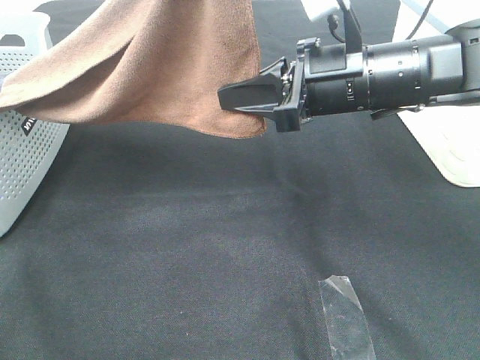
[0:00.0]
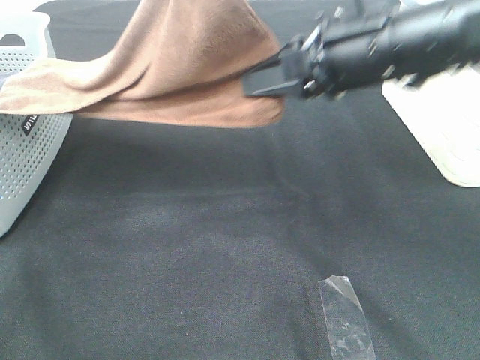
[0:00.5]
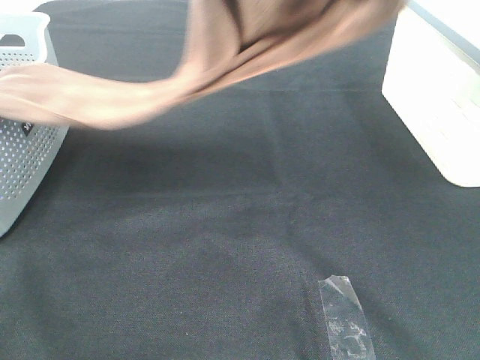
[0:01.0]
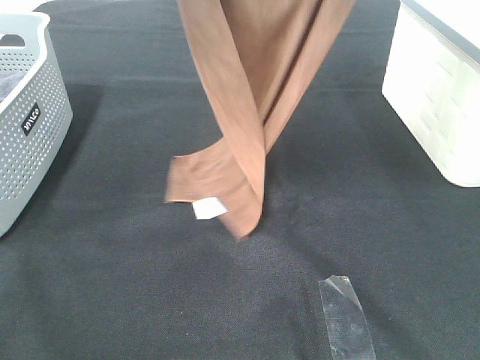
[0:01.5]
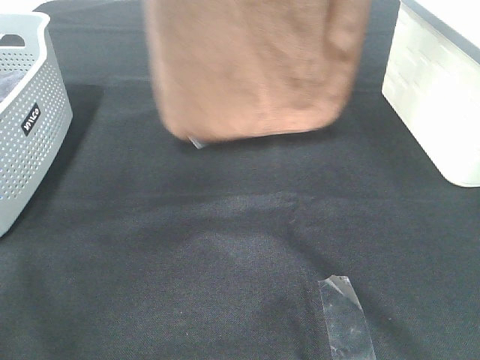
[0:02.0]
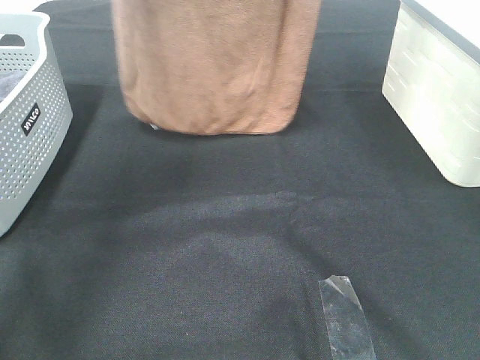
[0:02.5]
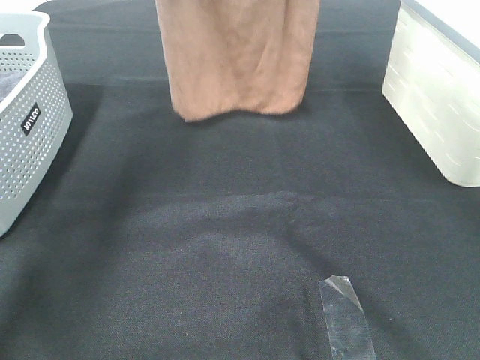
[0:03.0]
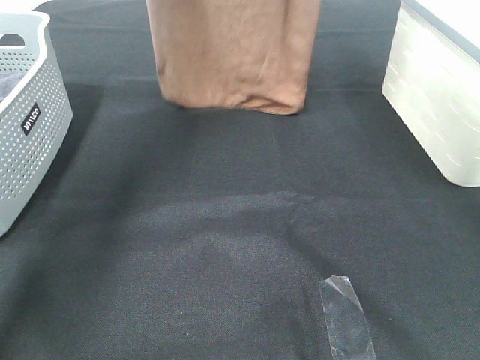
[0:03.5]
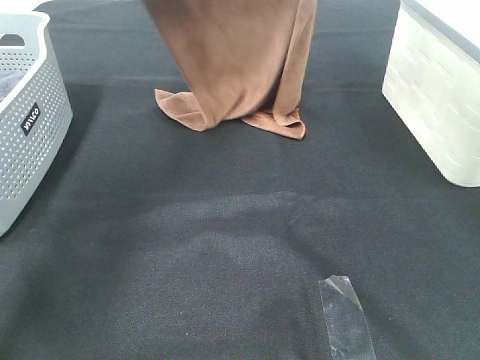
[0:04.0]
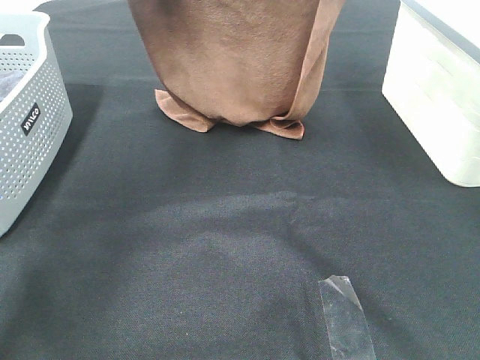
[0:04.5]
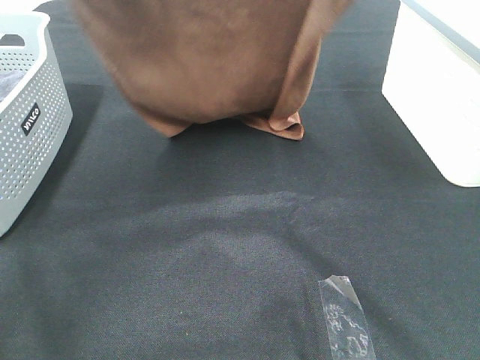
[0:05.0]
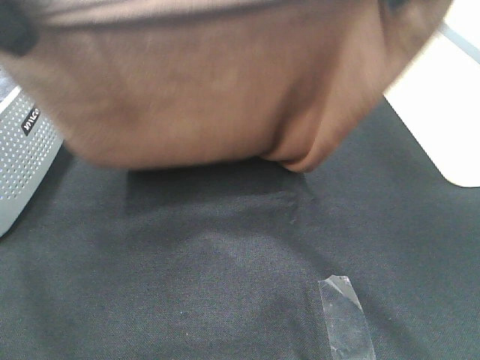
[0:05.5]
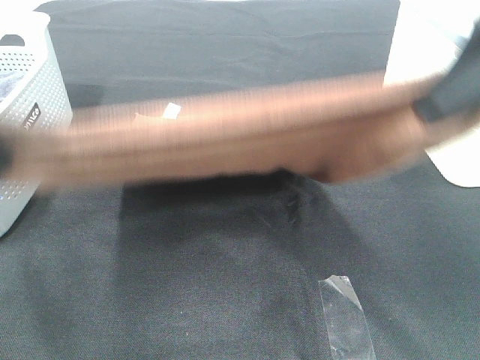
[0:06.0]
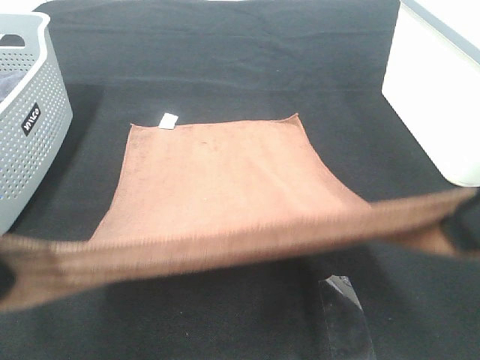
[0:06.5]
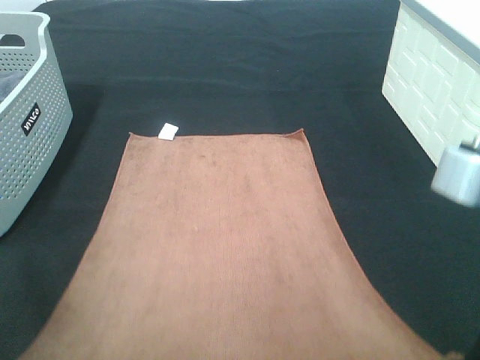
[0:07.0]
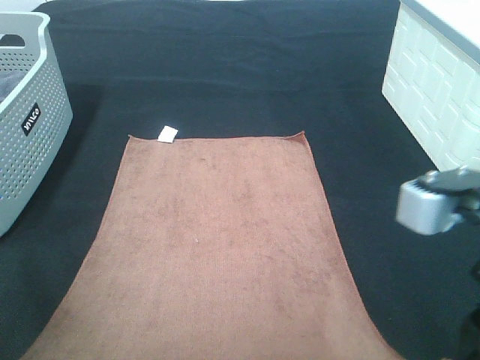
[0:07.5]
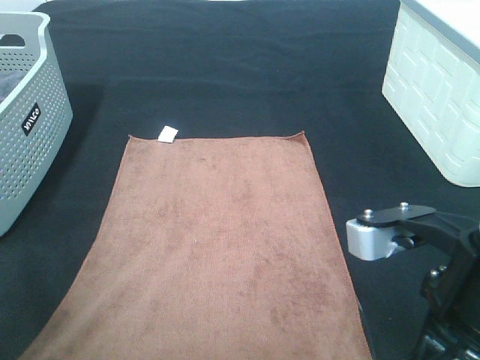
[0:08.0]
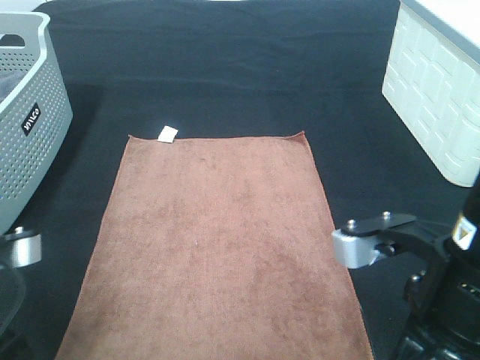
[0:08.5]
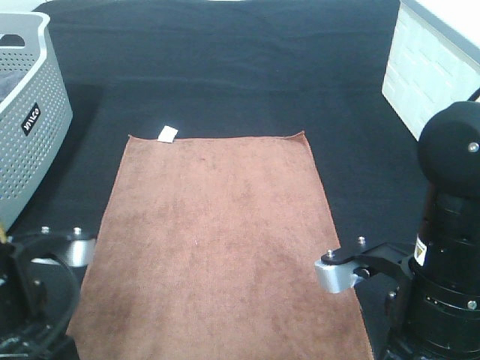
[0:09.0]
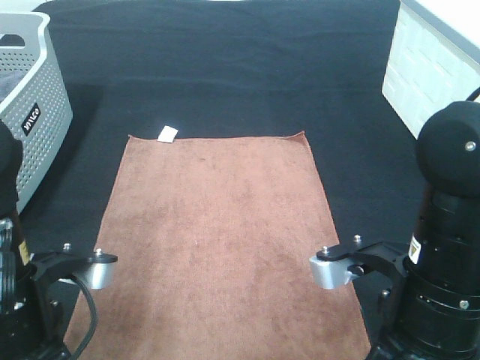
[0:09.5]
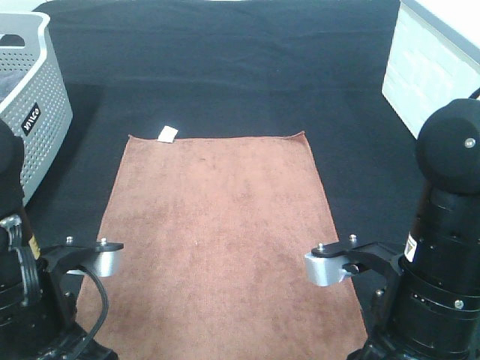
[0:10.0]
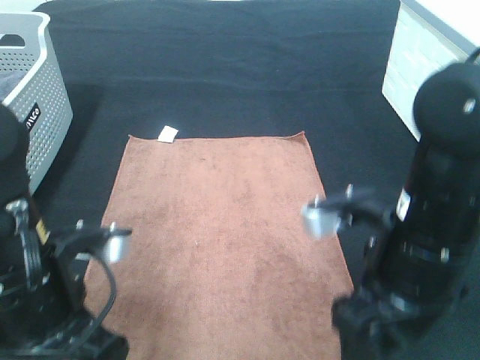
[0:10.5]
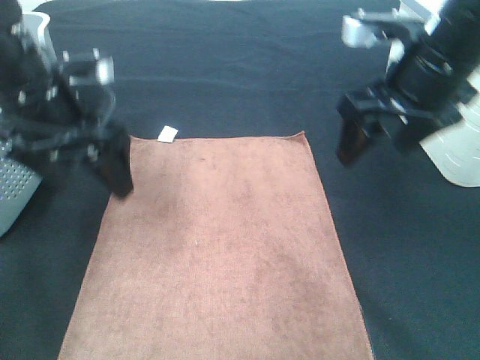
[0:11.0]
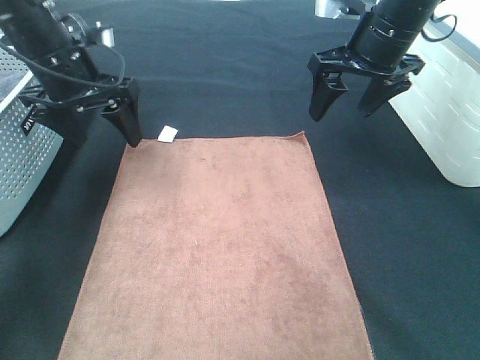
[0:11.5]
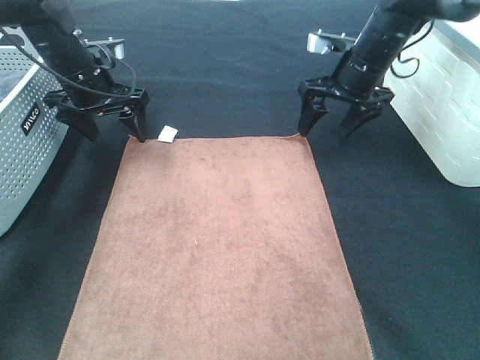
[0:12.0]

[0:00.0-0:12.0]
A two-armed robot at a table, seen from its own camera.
Task of the whole recording: Remove the towel and place it.
Step, 0:00.0 to 0:05.5: Left hand: spread the brown towel flat on the table.
Step, 0:00.0 to 0:05.5: Right hand: spread the brown towel flat on the table.
0:00.0 to 0:02.0: The left gripper goes approximately 10 cm forward and to the left. The right gripper shifts approximately 30 cm upward.
0:02.0 to 0:04.0: The grippers both shift downward and forward by about 15 cm.
0:04.0 to 0:06.0: The two grippers go about 30 cm backward.
0:06.0 to 0:08.0: The right gripper shifts roughly 15 cm downward; the left gripper moves downward and backward, approximately 15 cm.
0:08.0 to 0:10.0: The left gripper travels to the right and downward by some 10 cm, and opens up. The right gripper moves downward, about 5 cm, and opens.
0:10.0 to 0:12.0: The grippers both shift forward by about 35 cm.

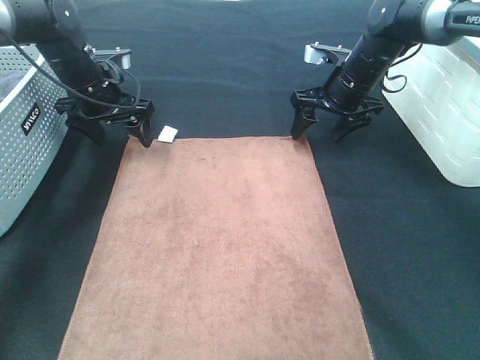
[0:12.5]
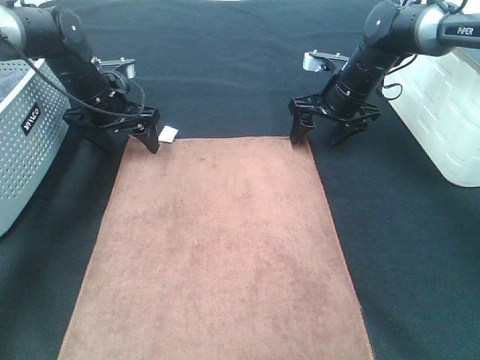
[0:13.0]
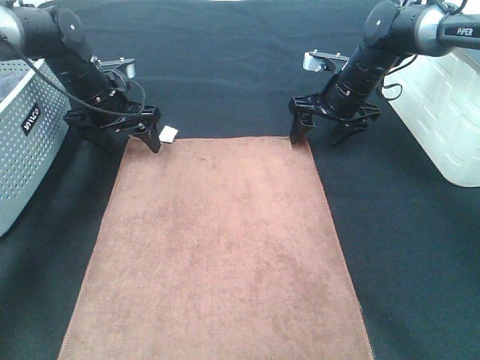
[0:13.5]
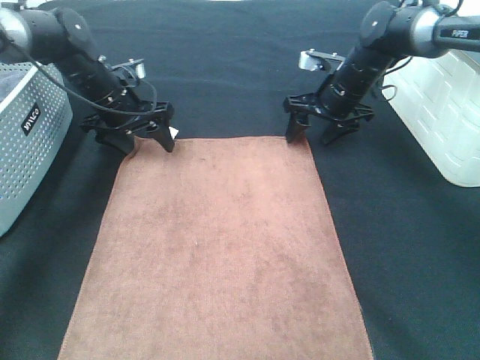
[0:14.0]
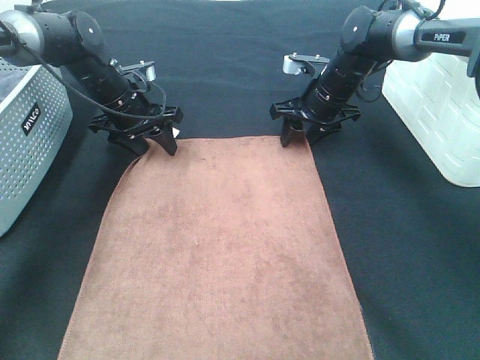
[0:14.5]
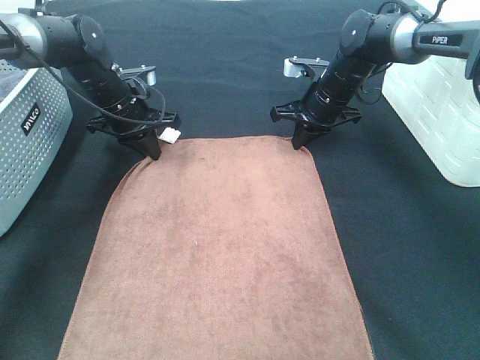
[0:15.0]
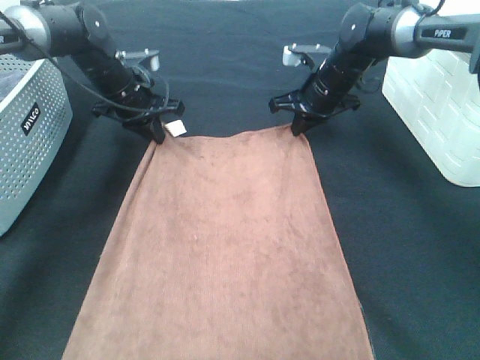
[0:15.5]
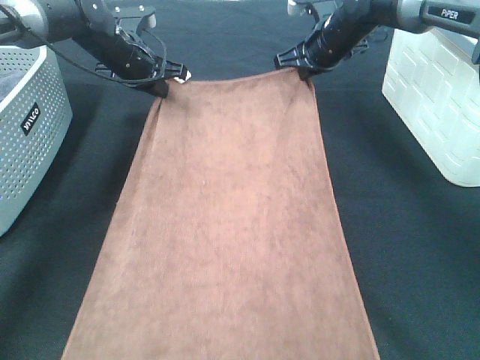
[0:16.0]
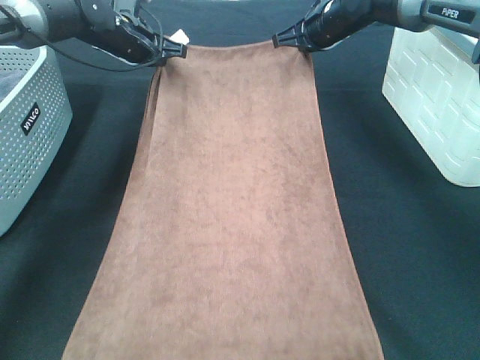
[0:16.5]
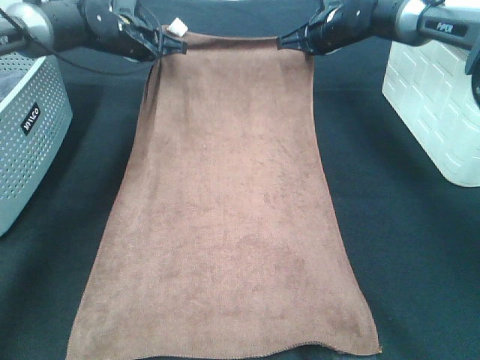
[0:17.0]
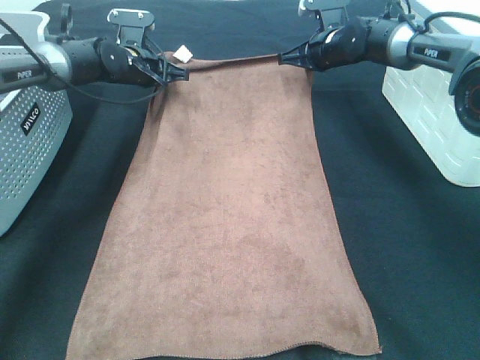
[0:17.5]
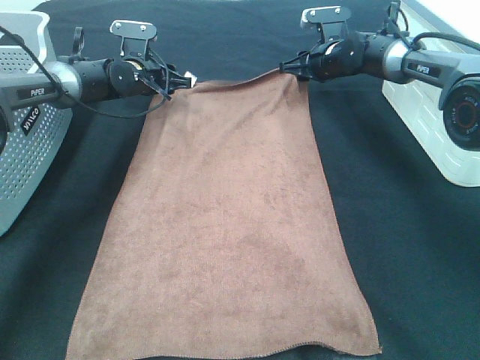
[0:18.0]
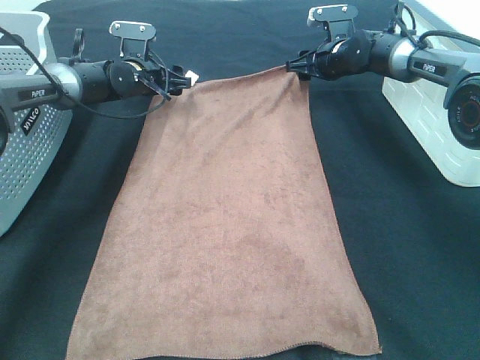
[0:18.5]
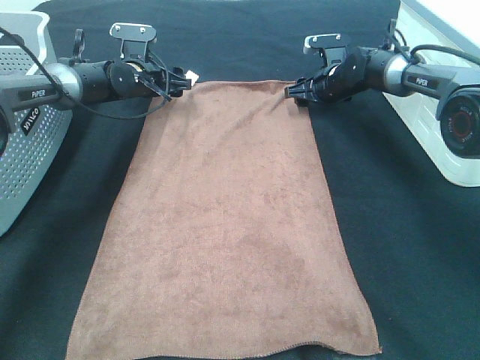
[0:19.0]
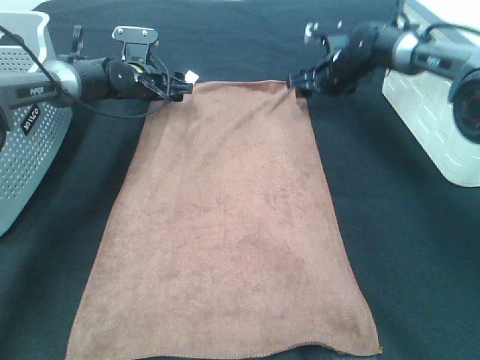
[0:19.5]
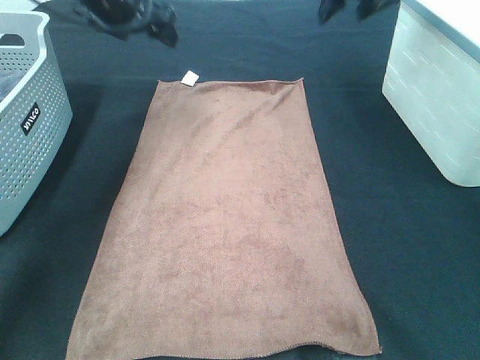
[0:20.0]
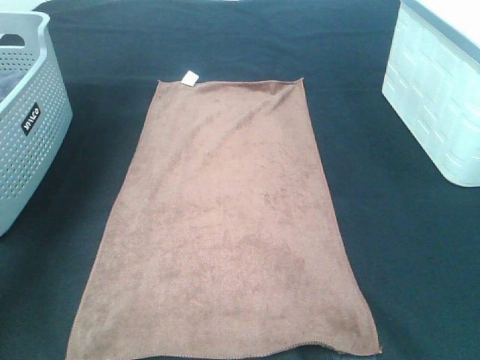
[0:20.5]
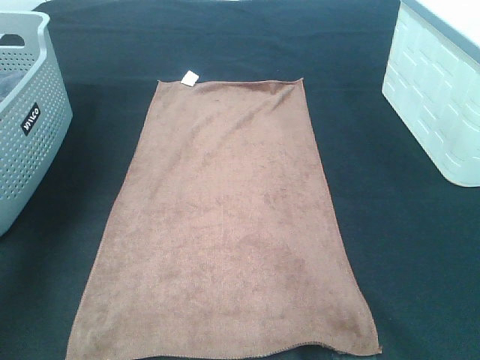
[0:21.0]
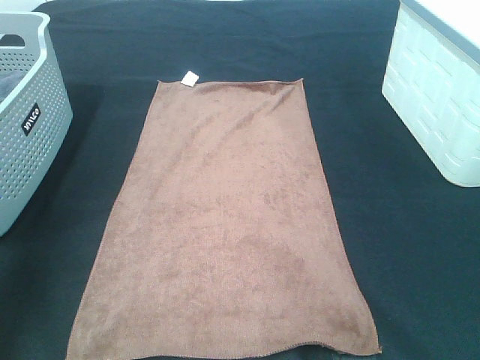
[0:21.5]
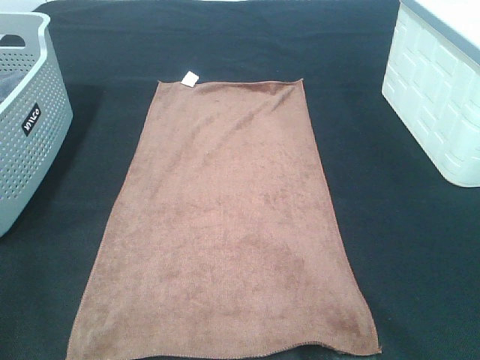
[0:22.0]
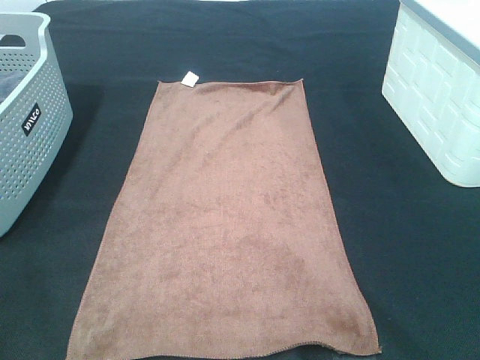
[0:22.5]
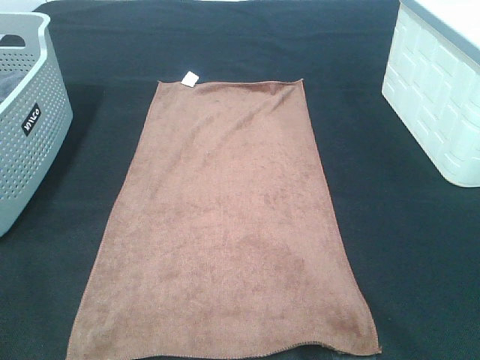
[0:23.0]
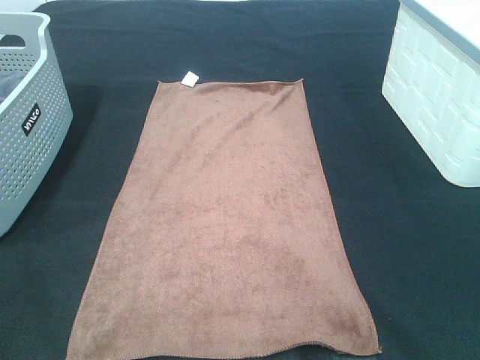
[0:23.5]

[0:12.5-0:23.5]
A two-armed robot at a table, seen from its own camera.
Task of the whole recording: Remove the towel and place it.
0:12.5 to 0:14.5: The right gripper closes up.
0:14.5 to 0:16.0: The left gripper moves approximately 5 cm, and closes. Meanwhile the right gripper heads upward, covering roughly 5 cm, and closes its fingers.
0:16.0 to 0:18.0: The grippers both shift downward by roughly 5 cm. The right gripper opens up, while the left gripper opens its fingers.
0:18.0 to 0:20.0: Both grippers travel together upward, roughly 20 cm.
0:20.0 to 0:21.5: The two grippers go roughly 35 cm backward.

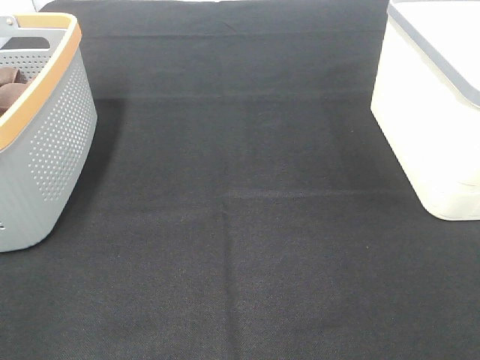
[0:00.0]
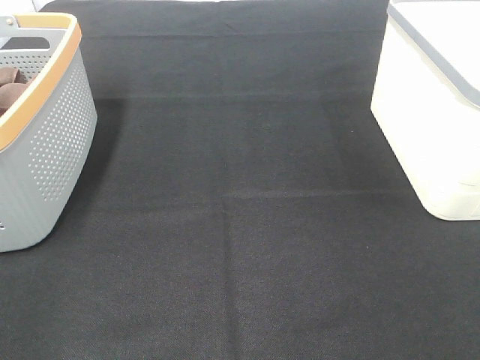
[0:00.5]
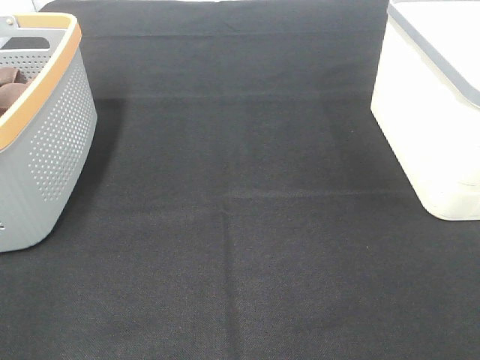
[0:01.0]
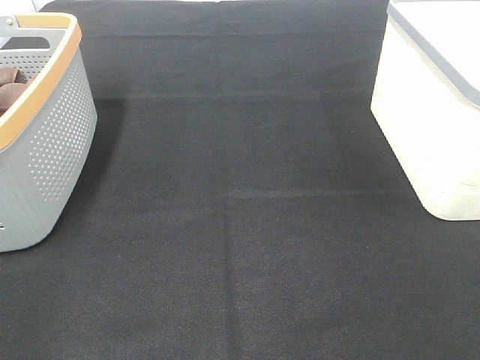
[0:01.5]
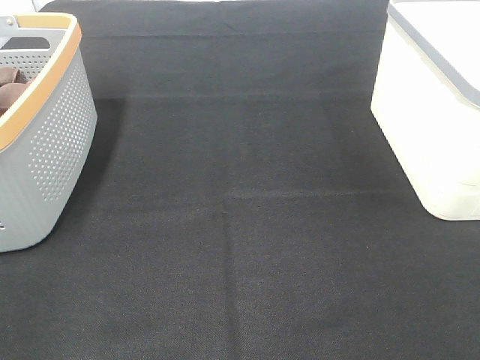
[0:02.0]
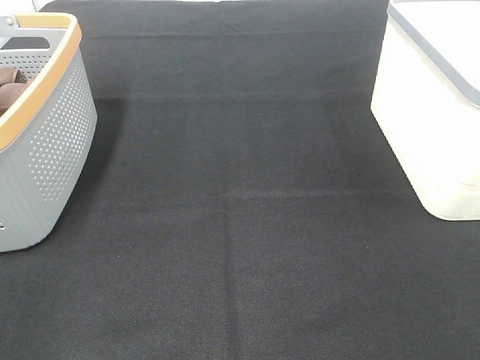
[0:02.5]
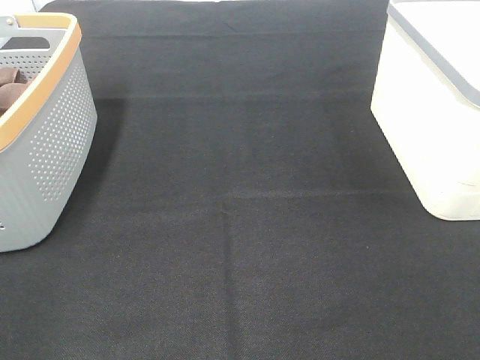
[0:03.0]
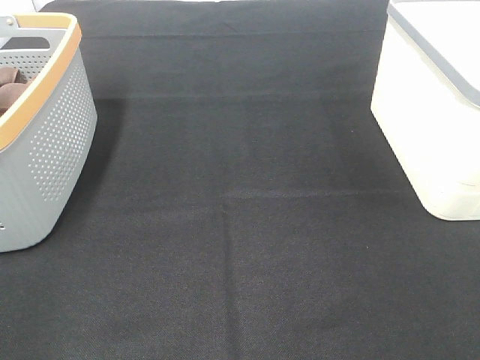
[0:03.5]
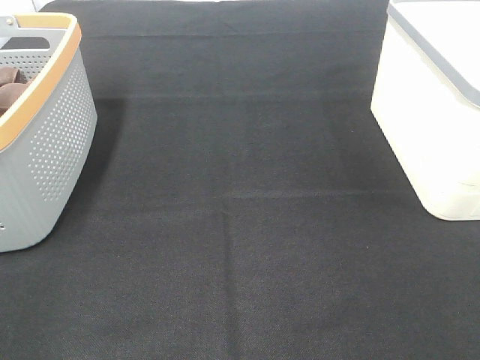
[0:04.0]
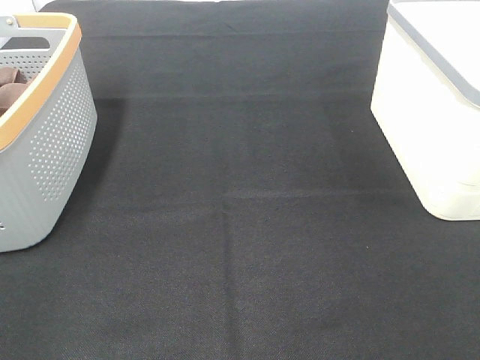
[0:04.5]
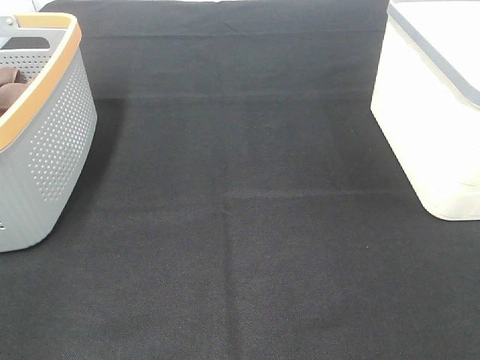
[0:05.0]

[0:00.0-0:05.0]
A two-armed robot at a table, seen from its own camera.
Task of the whole recording: Remove the towel and place it.
0:00.0 to 0:05.0: Neither gripper changes place.
